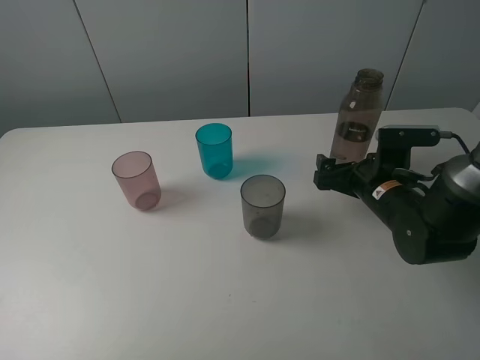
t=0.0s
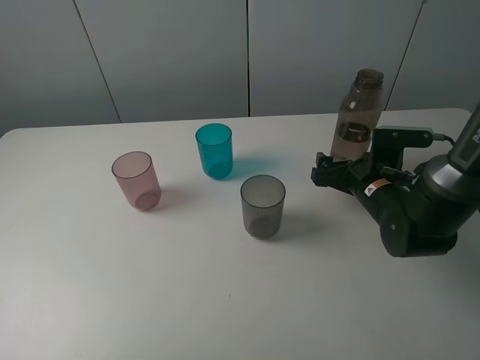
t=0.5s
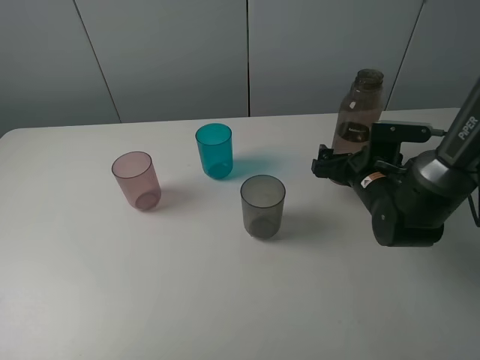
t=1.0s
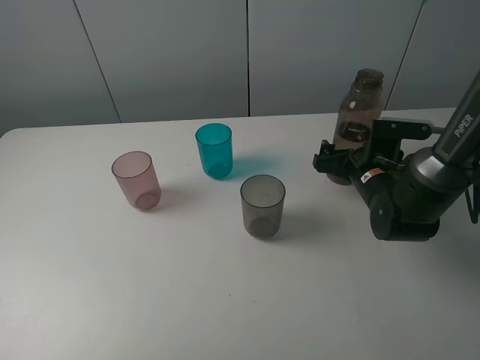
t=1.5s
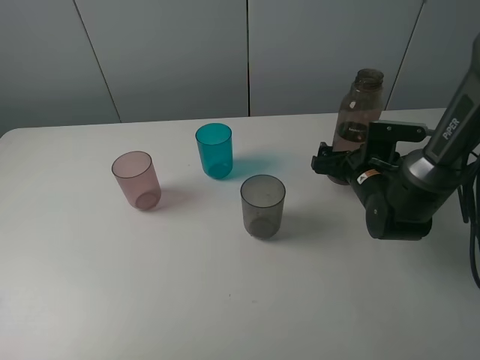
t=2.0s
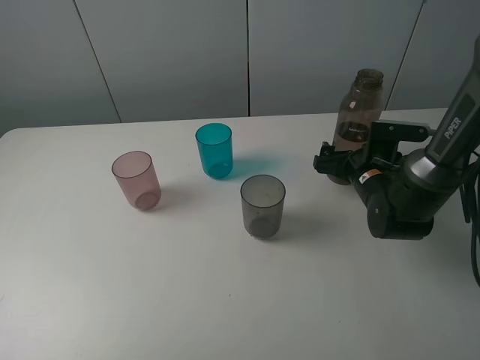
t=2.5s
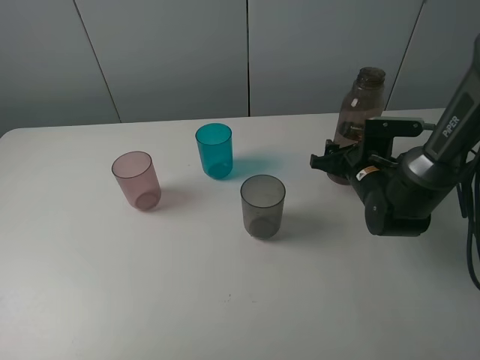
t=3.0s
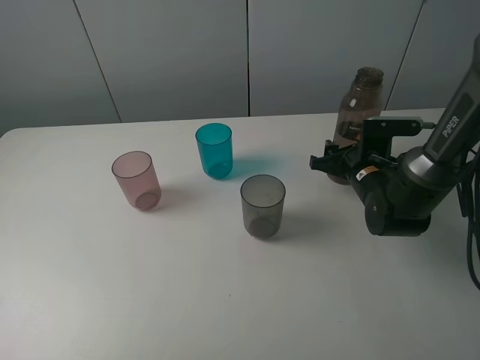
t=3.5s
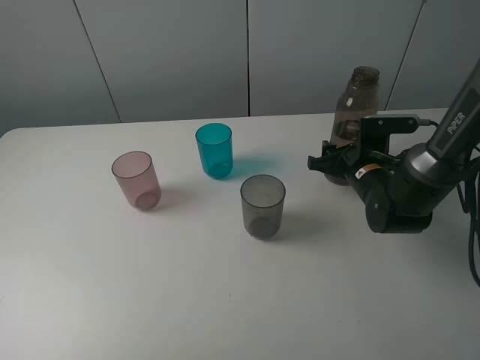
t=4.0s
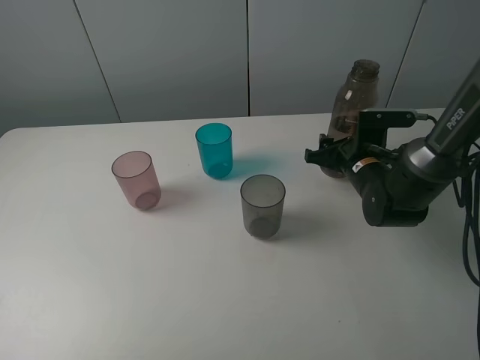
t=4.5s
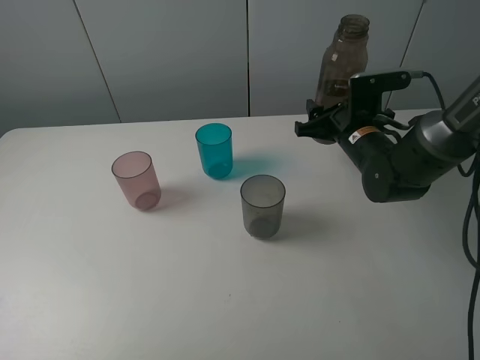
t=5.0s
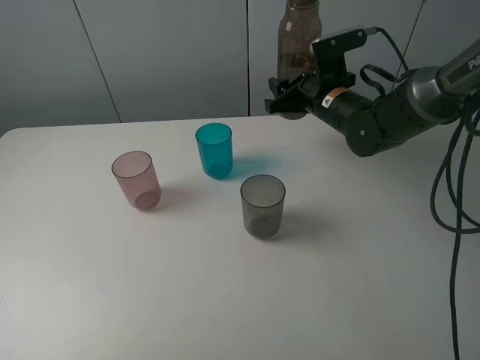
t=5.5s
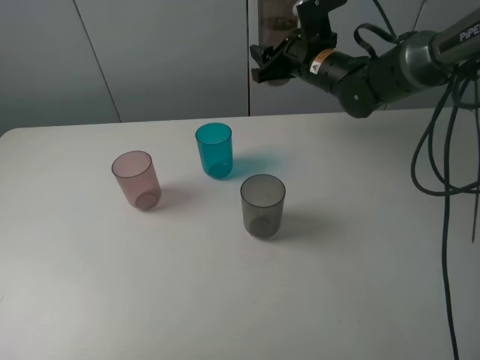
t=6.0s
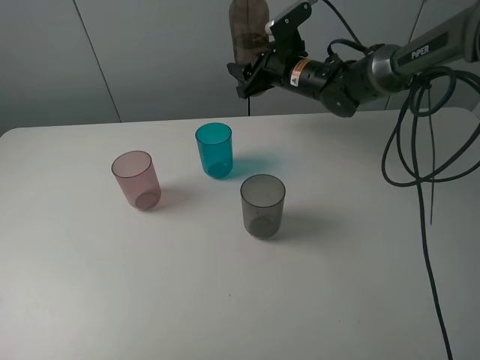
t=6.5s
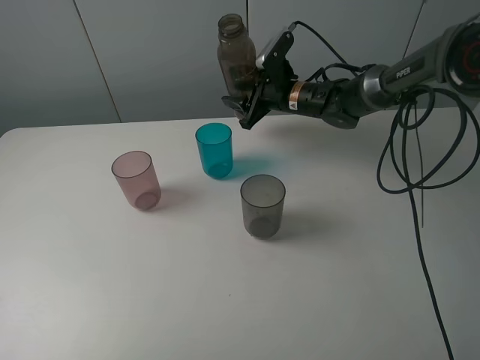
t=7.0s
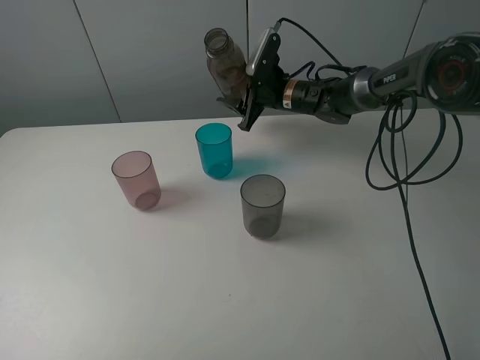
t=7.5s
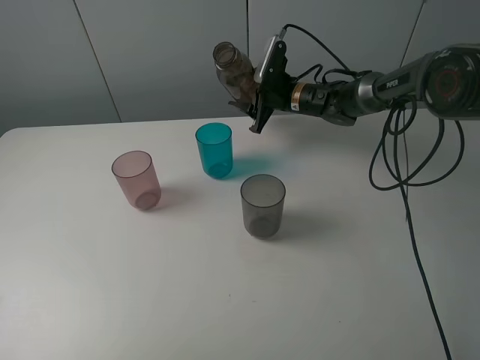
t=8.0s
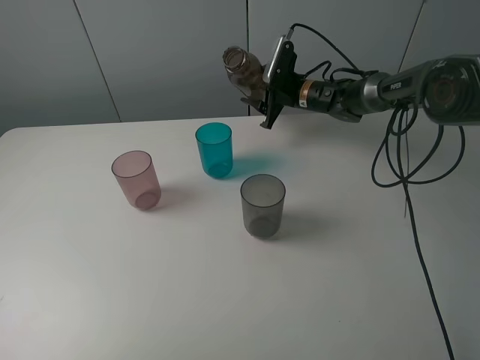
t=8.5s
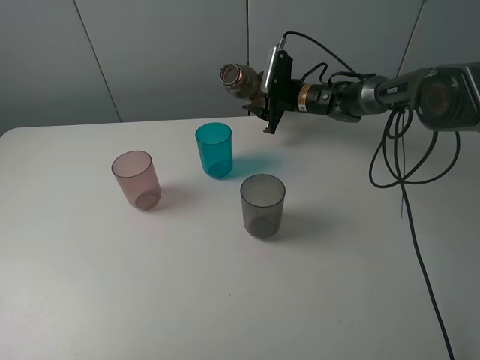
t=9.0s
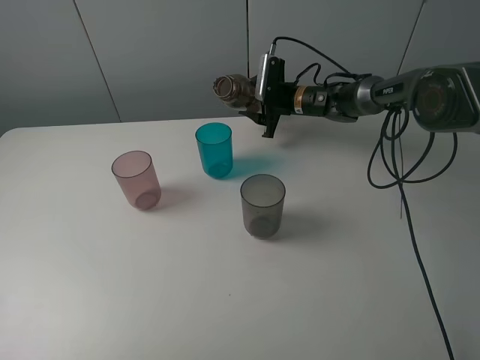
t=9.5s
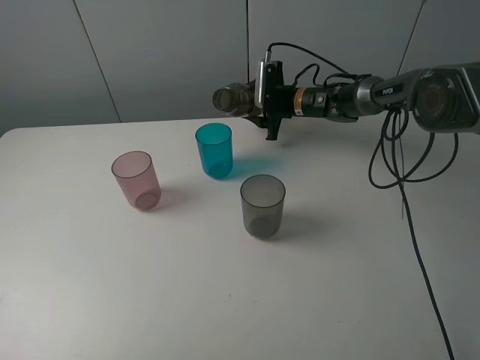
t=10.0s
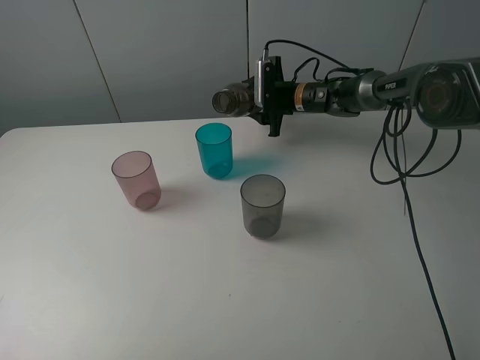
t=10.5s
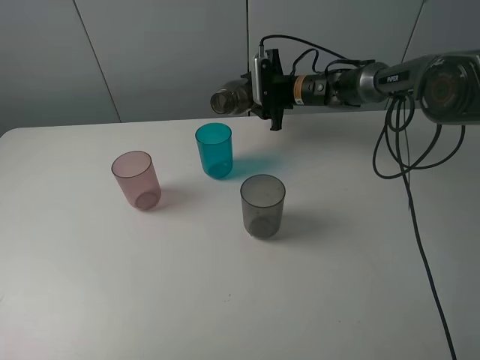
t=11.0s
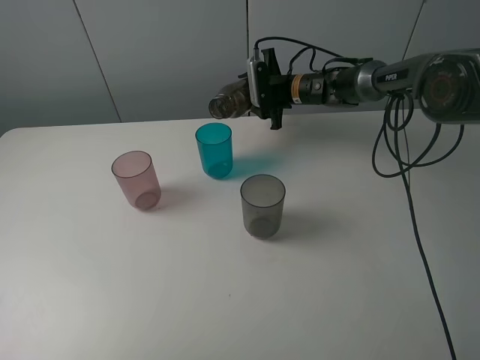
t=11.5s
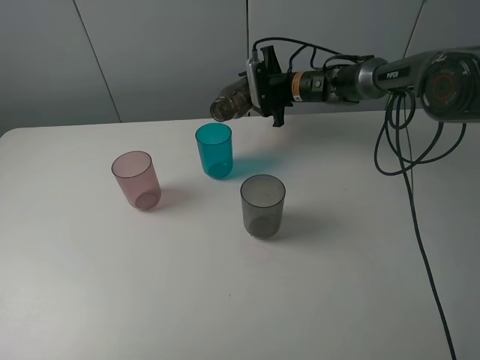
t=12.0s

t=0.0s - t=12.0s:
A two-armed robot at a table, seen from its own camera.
Task of the whole recording: pick up the bottle filled with water and pour water into the middle cup of the three cups.
Step, t=0.0s - t=3.5s: Grasp the transparent bottle with the right gripper.
t=0.0s - t=2.0s: The right gripper changes place by some 5 cm.
t=2.0s - t=4.0s: The right gripper closes.
t=4.0s - t=6.0s: The right gripper travels upward, forward and to the left by roughly 20 cm.
t=6.0s - t=8.0s: The right gripper heads downward and forward, covering approximately 10 cm.
t=10.0s - t=12.0s: There are only small adjustments of the grippers.

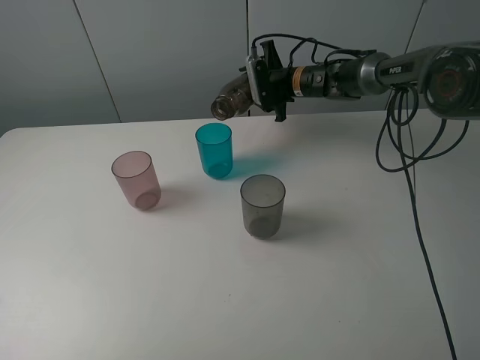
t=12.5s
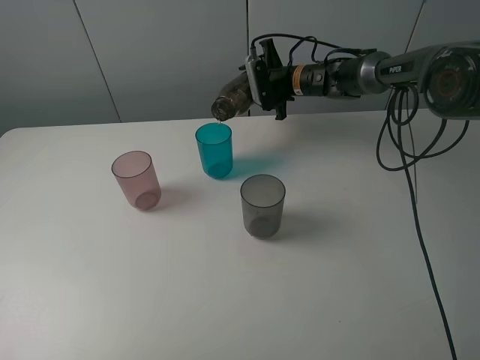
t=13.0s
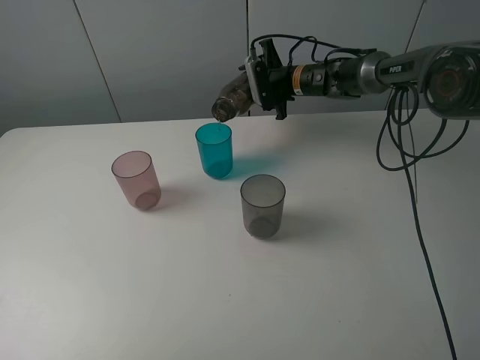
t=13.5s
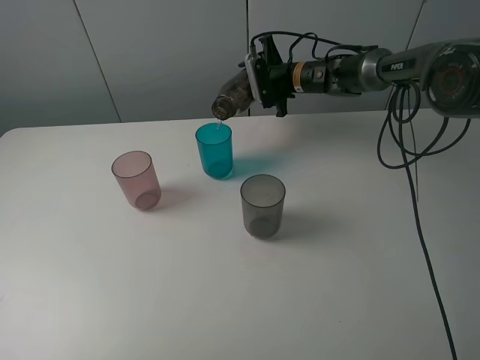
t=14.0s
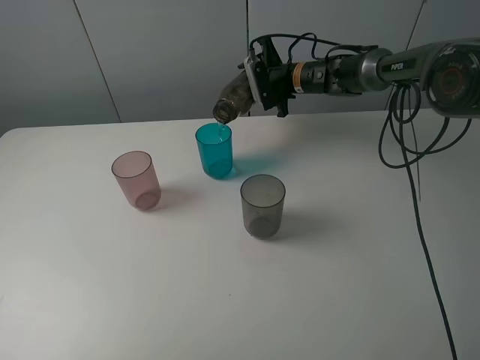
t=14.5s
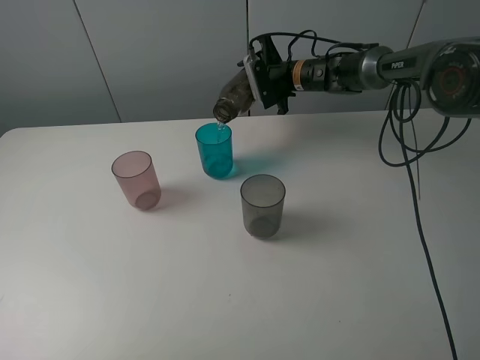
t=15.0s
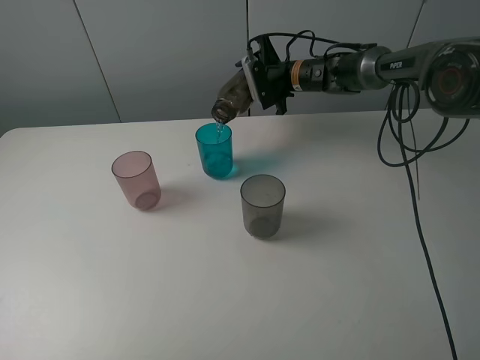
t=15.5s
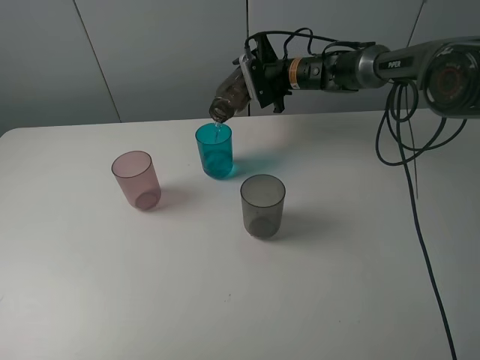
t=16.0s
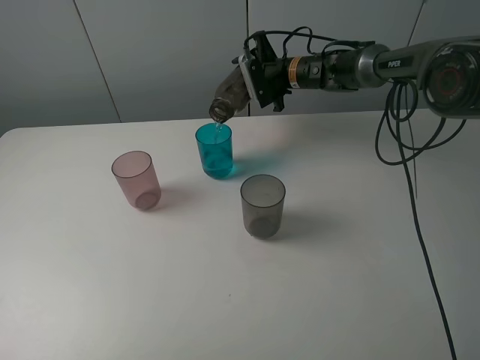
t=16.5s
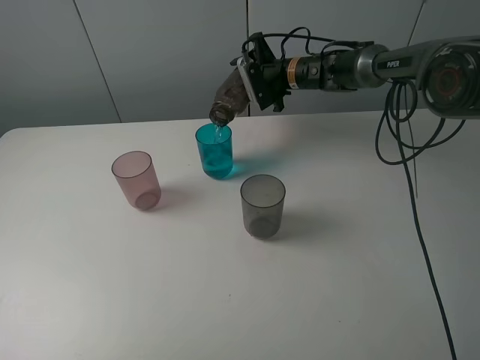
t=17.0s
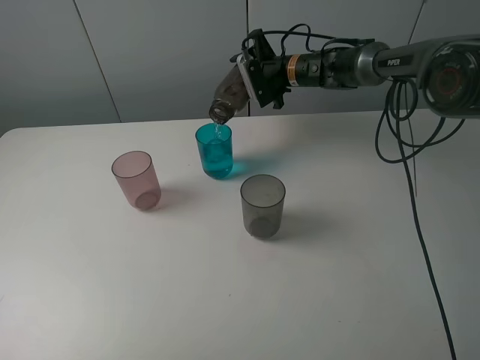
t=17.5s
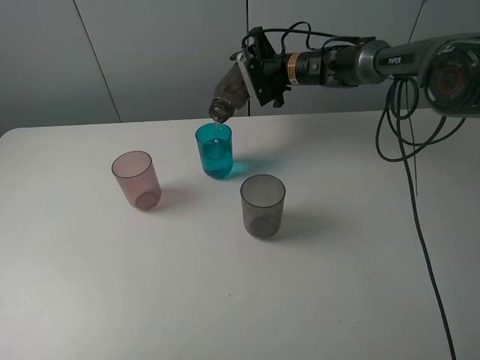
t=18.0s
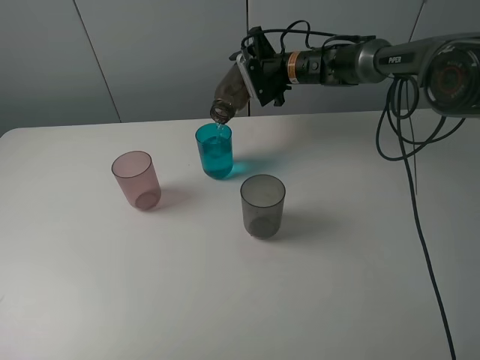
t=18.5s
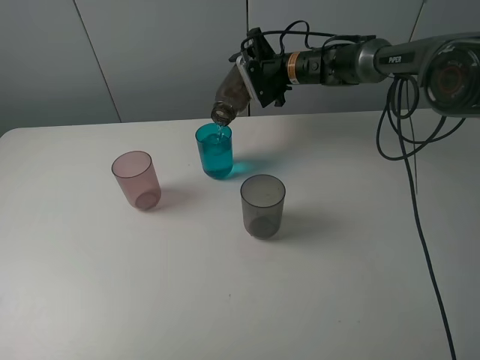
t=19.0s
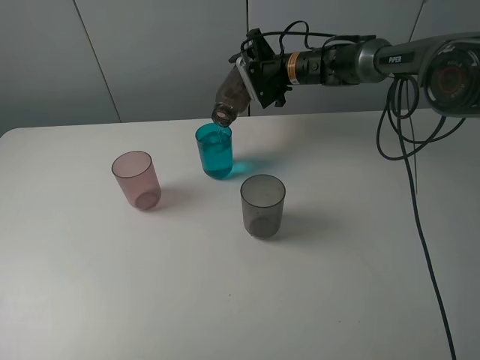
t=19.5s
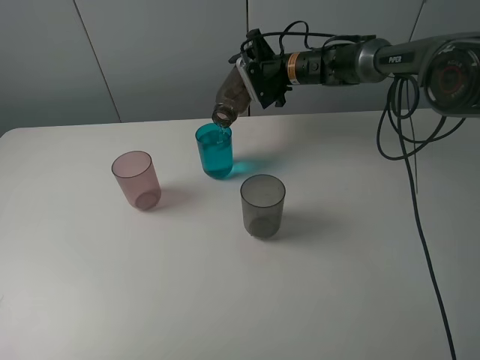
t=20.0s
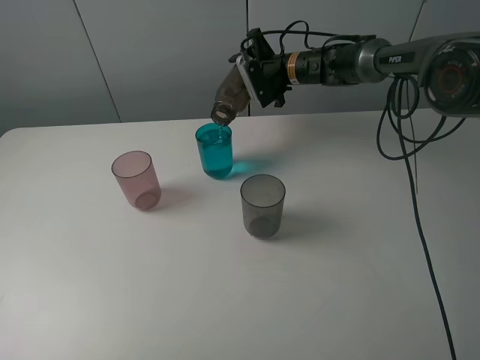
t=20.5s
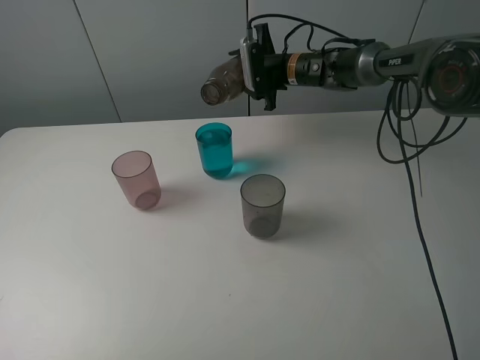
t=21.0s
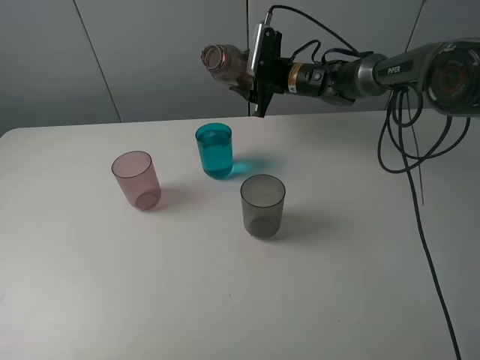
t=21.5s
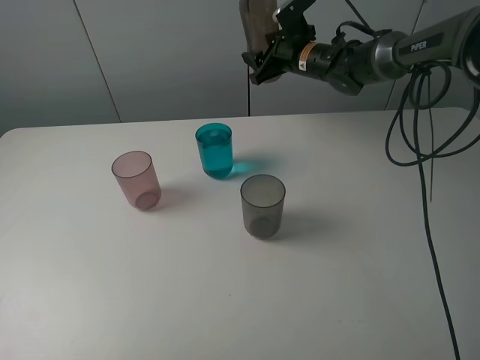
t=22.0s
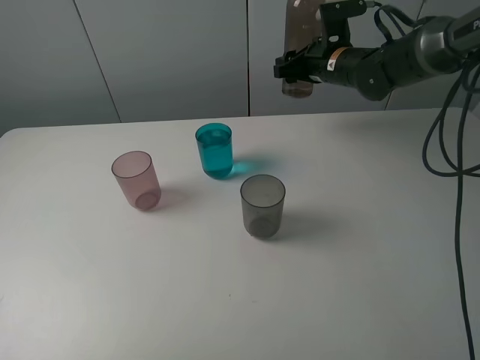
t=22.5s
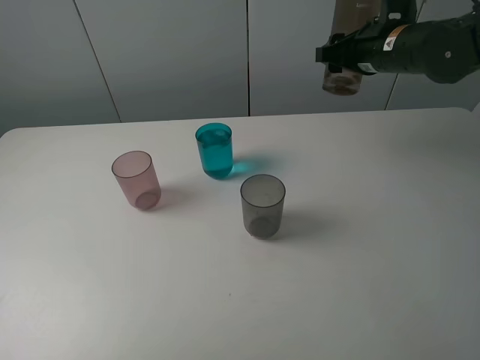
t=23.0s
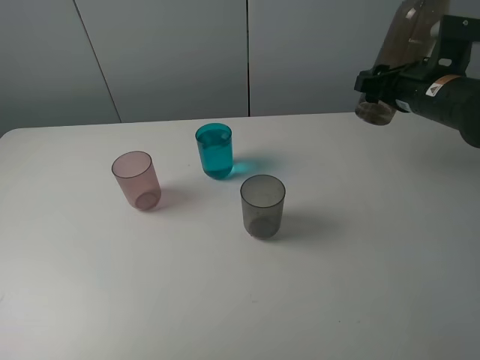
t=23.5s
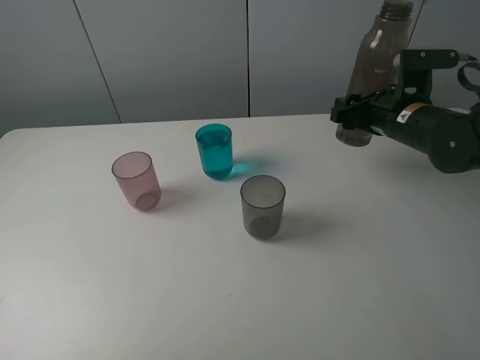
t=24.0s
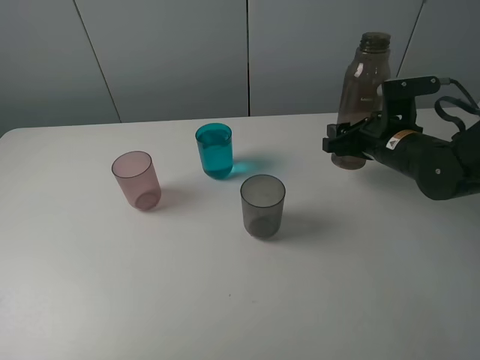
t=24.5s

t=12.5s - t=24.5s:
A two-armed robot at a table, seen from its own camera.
Task of the whole recording: pick up the bottle filled with water and pour water into the middle cup of the three cups.
t=12.5s - t=14.5s: The grippers make only small movements.
t=14.5s - t=16.5s: Both grippers stay about where they are.
t=16.5s - t=18.5s: The grippers move only a little.
t=18.5s - t=20.5s: Both grippers stay about where they are.
t=20.5s - t=22.5s: The right gripper travels backward and to the right by approximately 10 cm.
t=22.5s - t=24.5s: The right gripper moves backward and to the right, roughly 15 cm.

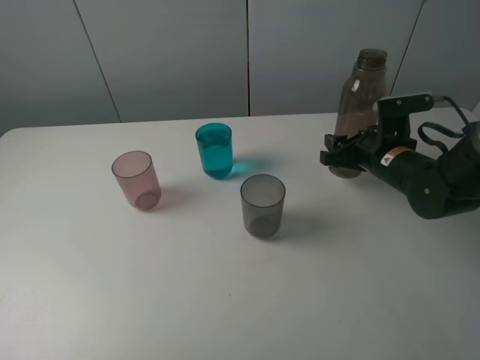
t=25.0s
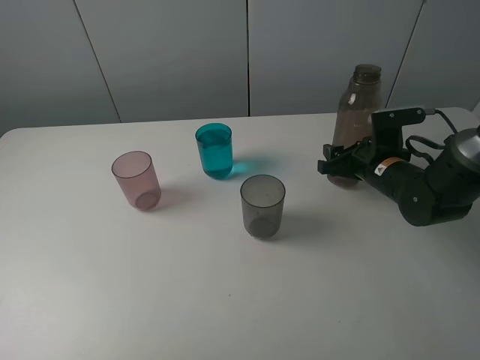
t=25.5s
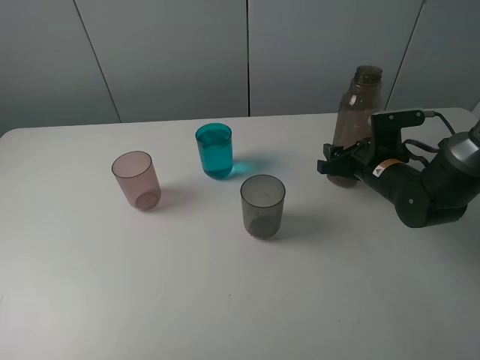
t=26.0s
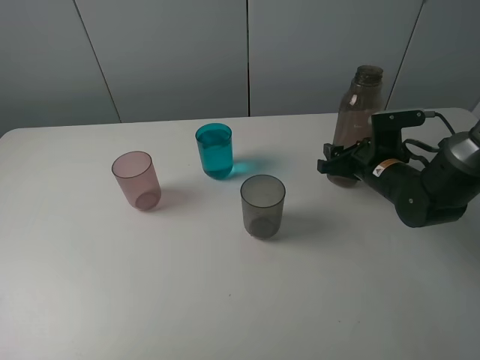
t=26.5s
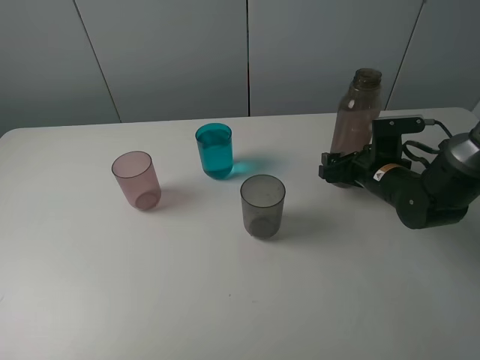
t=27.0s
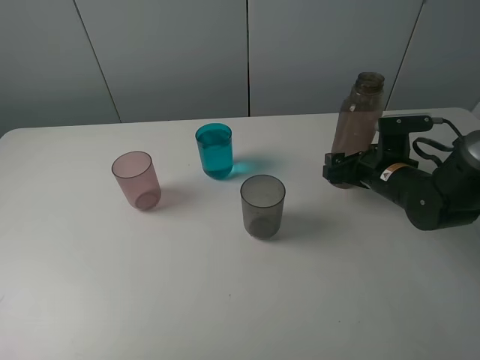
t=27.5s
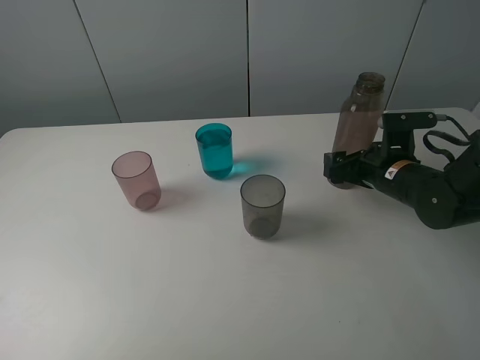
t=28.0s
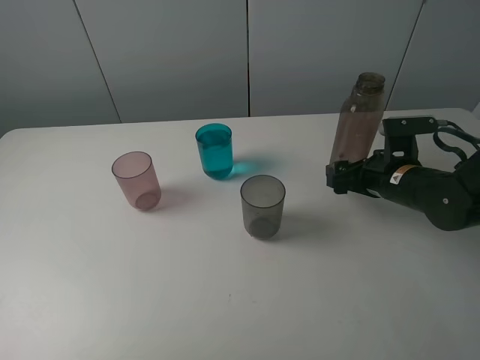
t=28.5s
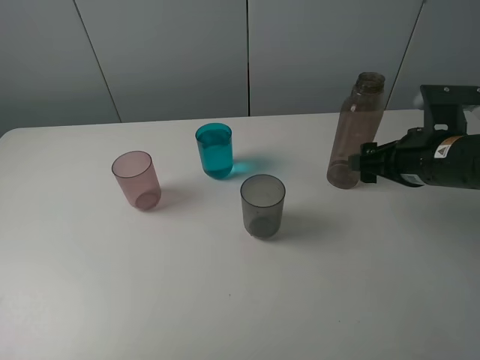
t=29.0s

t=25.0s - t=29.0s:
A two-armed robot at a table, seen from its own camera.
Task of the whole recording: pick up the bottle filled with water and pour water into the middle cup of the three cups.
Step, t=25.0s - t=29.0s: Place the transparent bottle with the right gripper.
t=25.0s - t=27.0s: The right gripper opens its fingers.
t=27.0s - t=29.0s: The right gripper moves upward and backward, some 15 cm.
